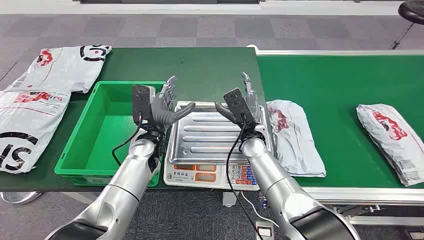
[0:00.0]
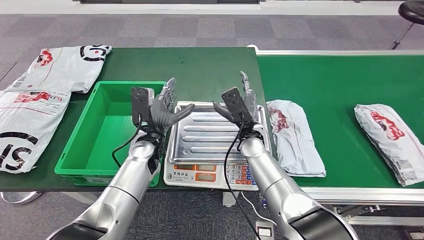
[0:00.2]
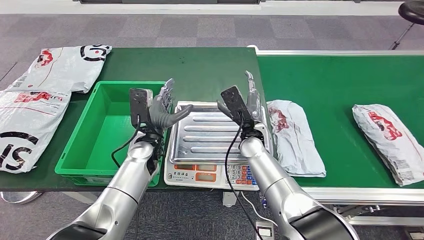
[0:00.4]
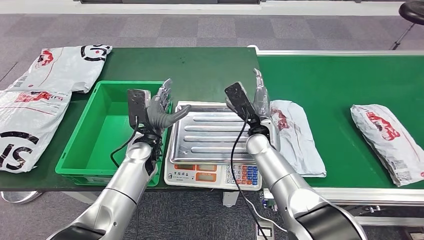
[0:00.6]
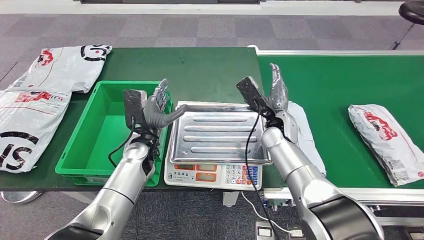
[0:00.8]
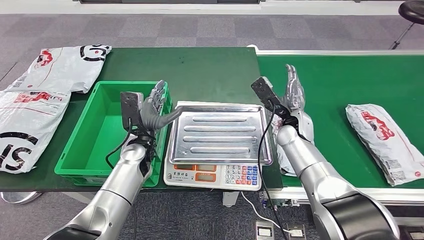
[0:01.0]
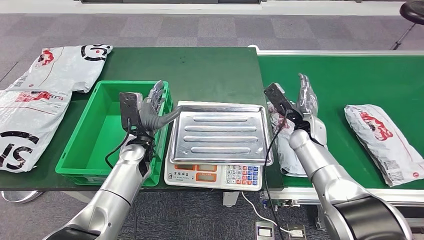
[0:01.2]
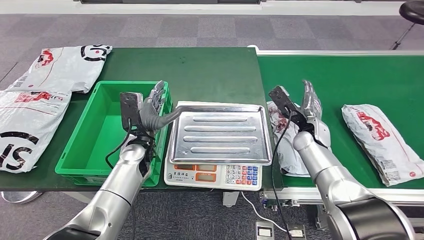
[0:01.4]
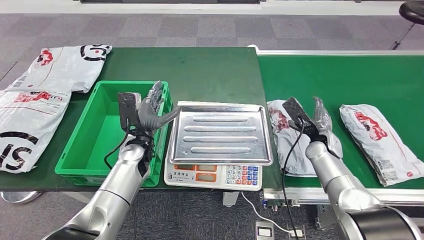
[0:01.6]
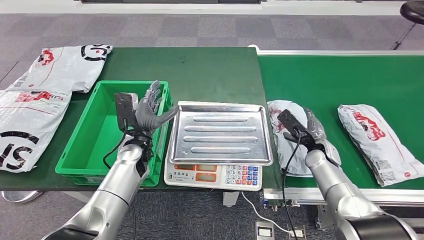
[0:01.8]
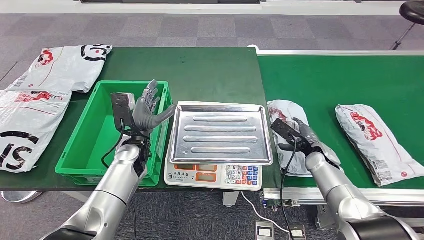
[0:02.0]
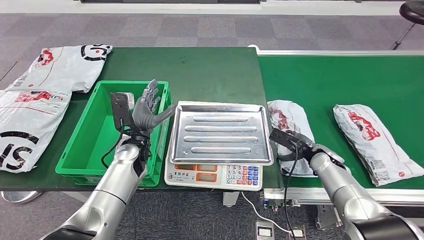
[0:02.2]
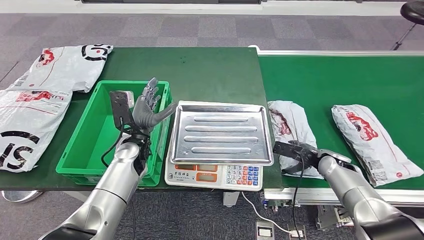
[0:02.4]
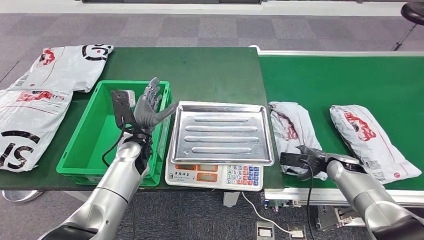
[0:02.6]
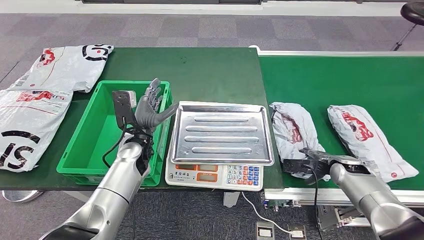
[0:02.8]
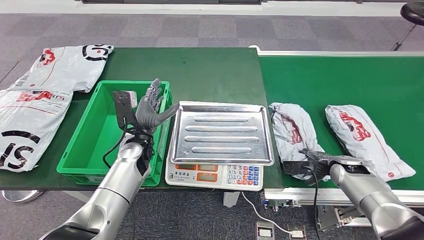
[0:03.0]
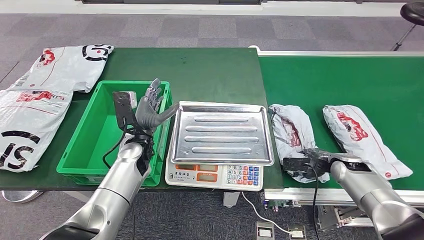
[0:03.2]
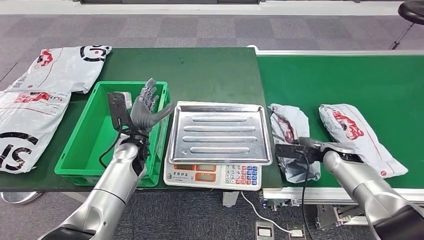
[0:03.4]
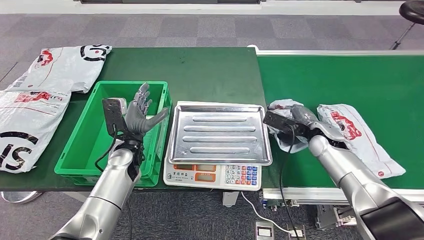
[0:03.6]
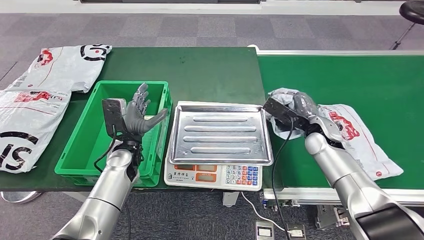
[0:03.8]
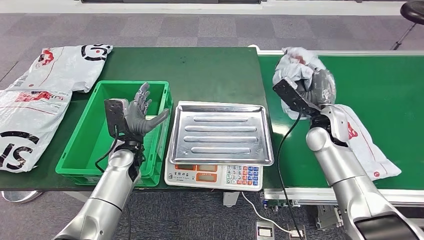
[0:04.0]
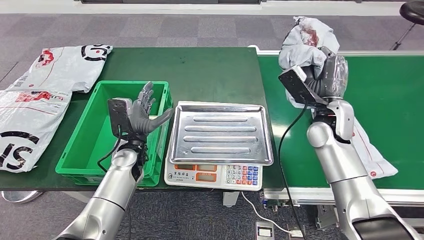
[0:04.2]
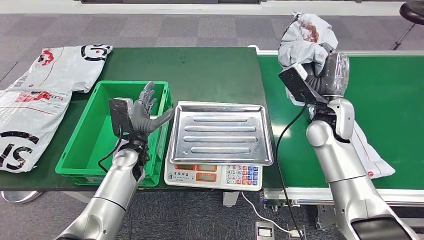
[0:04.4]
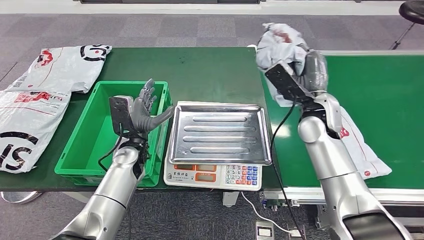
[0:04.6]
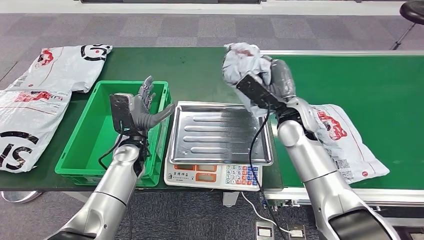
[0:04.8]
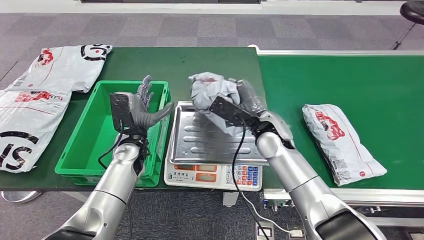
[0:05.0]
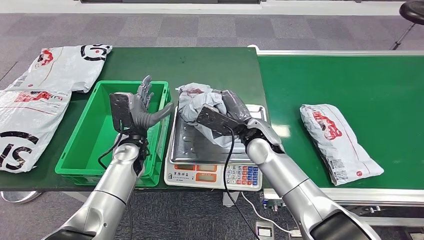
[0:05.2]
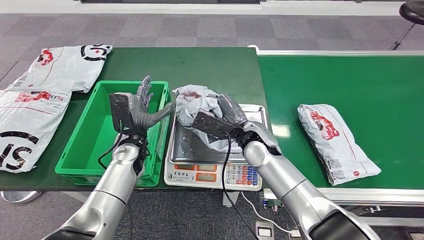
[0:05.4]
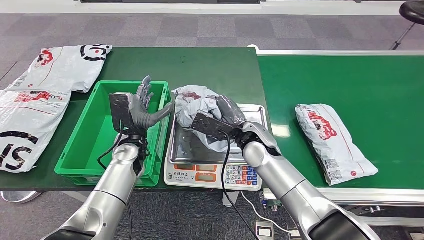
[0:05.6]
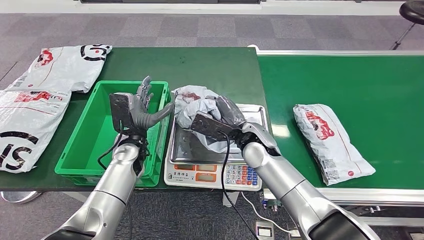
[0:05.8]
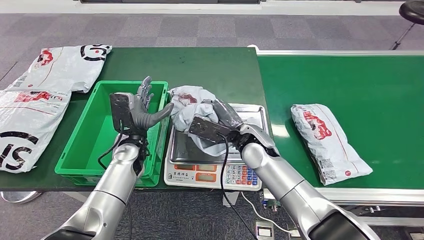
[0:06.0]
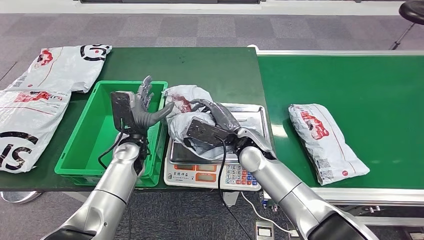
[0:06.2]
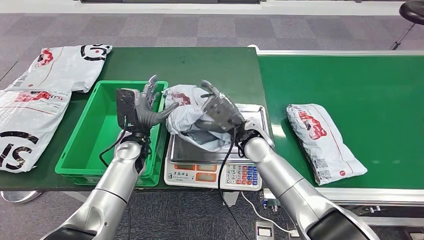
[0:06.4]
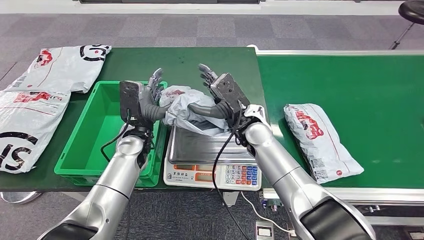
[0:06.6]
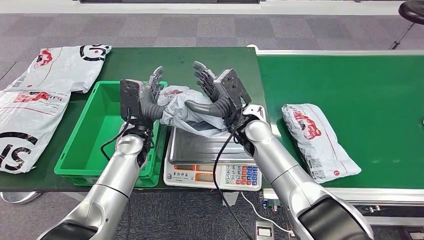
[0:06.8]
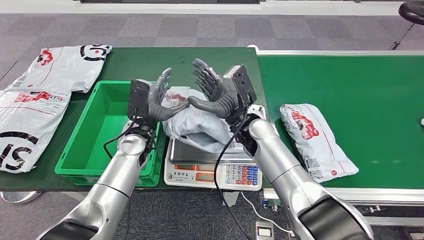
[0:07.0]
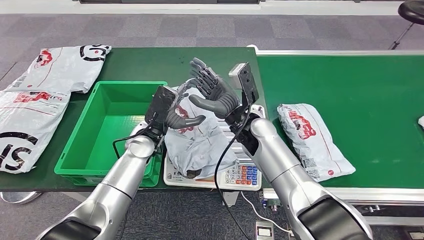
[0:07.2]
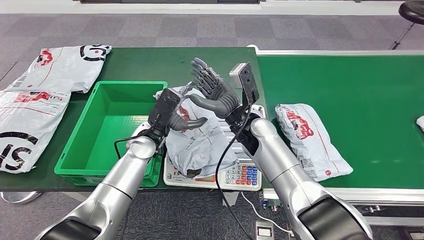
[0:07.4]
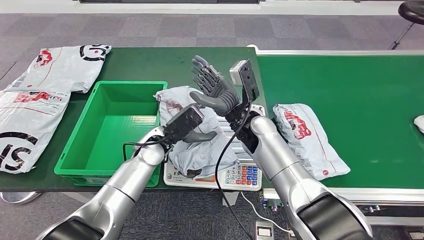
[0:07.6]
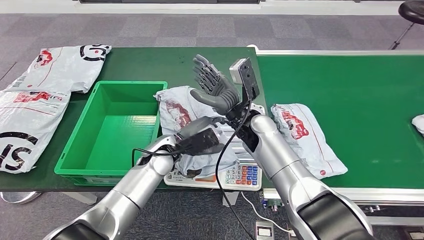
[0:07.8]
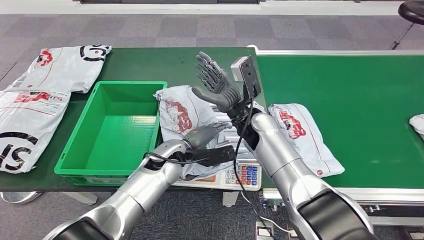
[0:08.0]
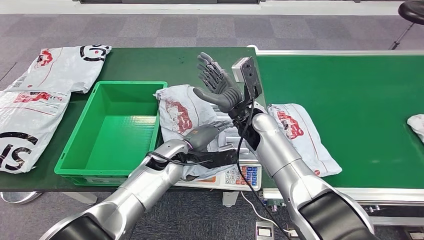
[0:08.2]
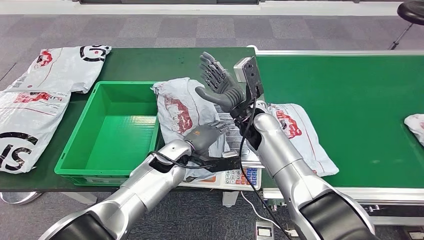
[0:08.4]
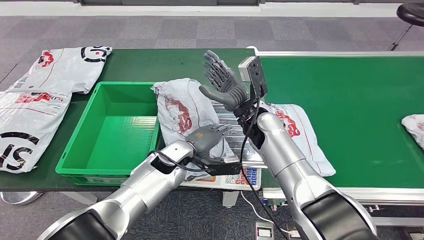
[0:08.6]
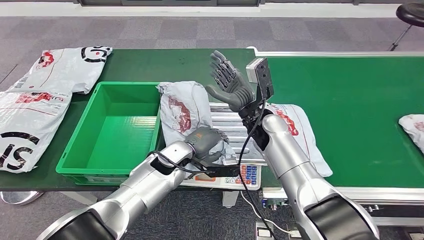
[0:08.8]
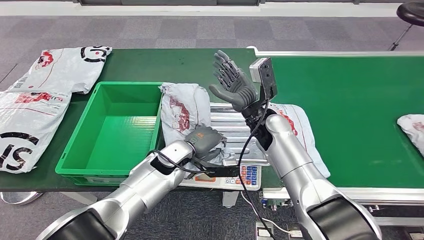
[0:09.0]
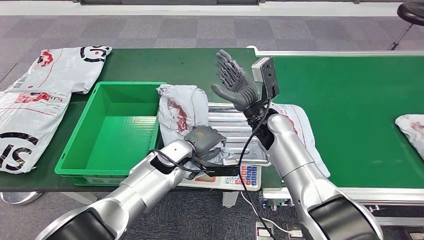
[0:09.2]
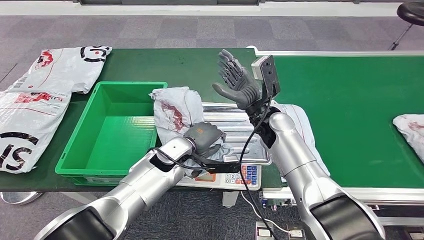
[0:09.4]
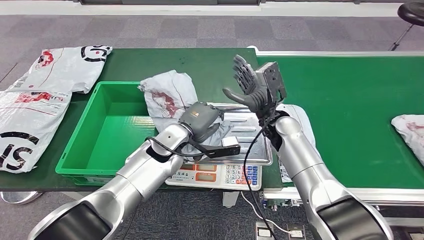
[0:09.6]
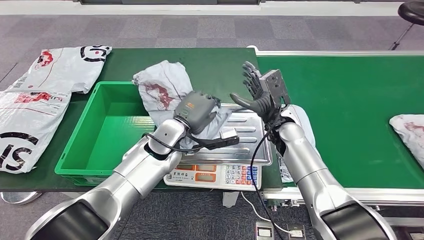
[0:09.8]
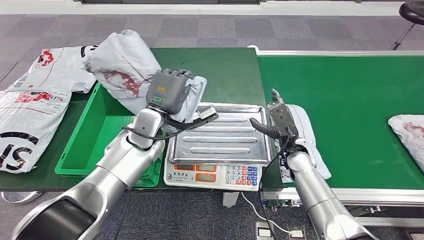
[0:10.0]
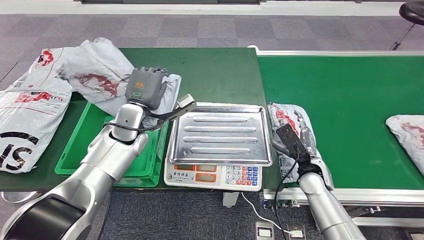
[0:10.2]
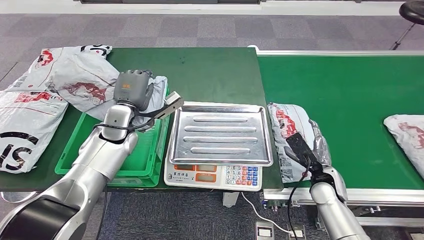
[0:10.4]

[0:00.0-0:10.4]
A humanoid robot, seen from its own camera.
Step, 0:00.0 to 0:04.6: Take the parcel off the conveyor belt.
Step, 0:04.8 to 0:07.0: Place the parcel onto the inbound machine.
Step, 0:07.2 to 0:10.0: Pick up the parcel from the inbound machine.

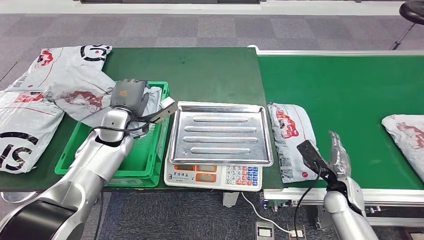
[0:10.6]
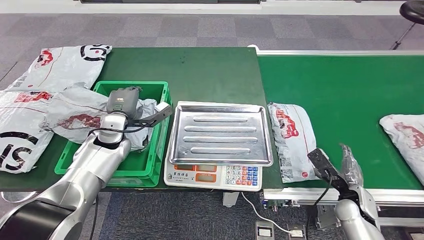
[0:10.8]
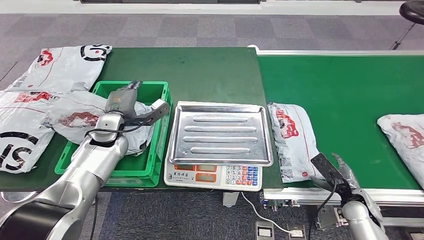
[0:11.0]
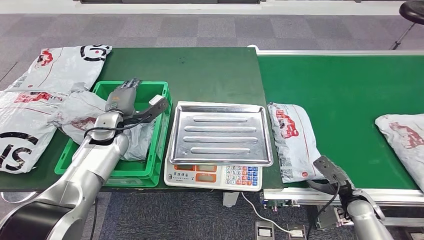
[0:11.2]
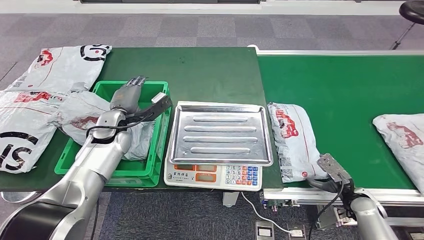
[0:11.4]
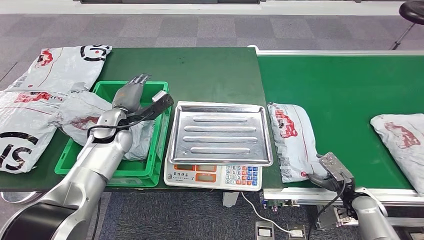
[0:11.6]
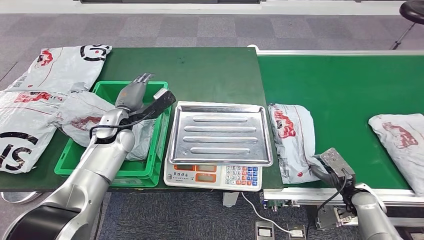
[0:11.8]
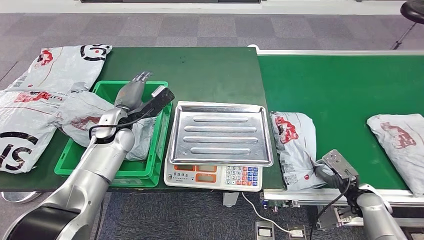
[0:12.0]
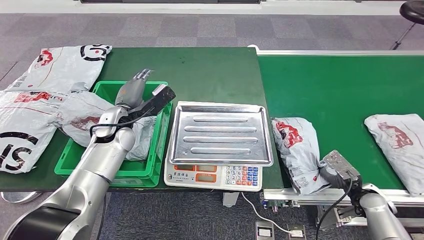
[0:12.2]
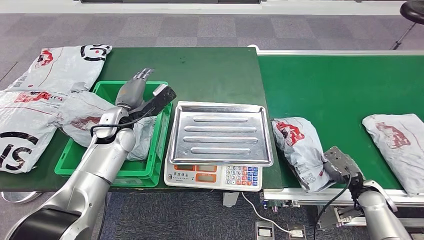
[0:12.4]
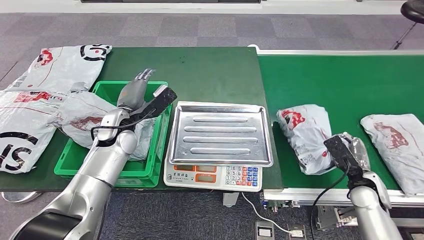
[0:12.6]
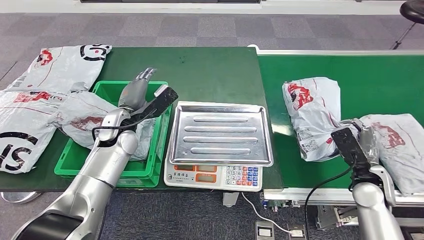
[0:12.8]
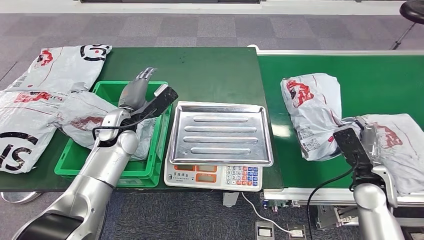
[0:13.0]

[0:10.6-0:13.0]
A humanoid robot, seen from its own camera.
Step, 0:10.6 to 0:13.0: Put the parcel inside the courier box.
0:10.6 to 0:11.8: The right hand heads to the right, covering some 10 cm.
0:11.8 to 0:13.0: The right hand shifts some 10 cm upward and to the left.
